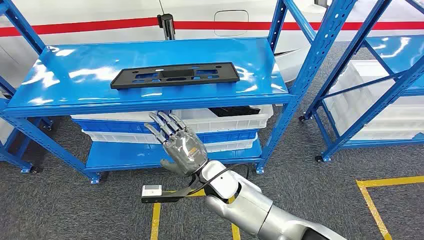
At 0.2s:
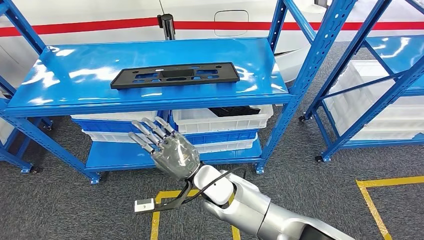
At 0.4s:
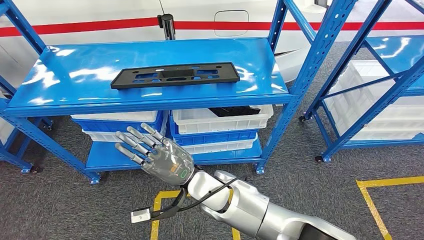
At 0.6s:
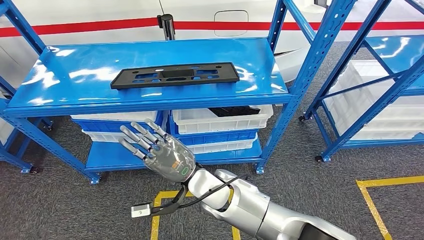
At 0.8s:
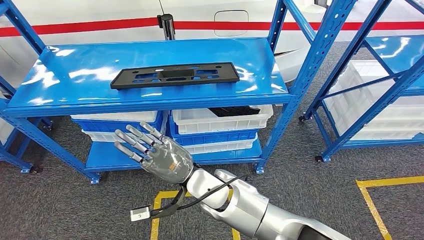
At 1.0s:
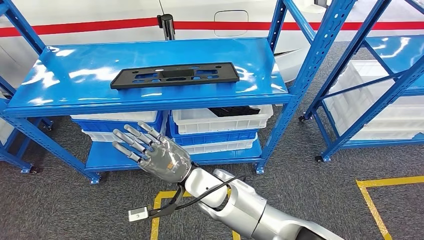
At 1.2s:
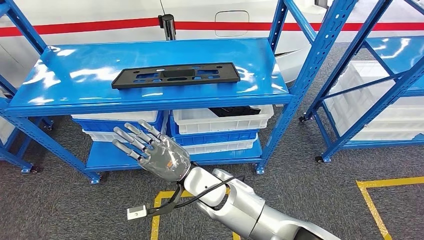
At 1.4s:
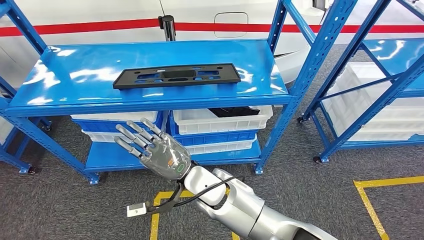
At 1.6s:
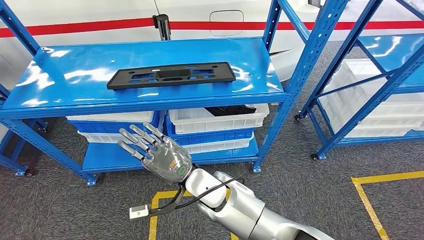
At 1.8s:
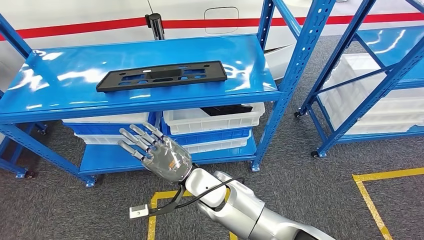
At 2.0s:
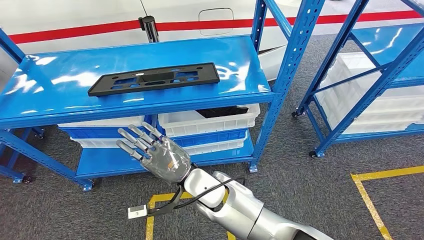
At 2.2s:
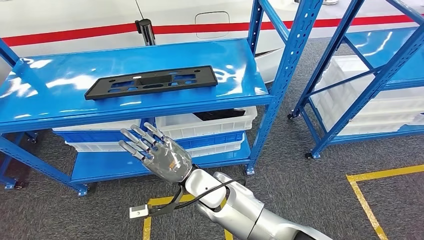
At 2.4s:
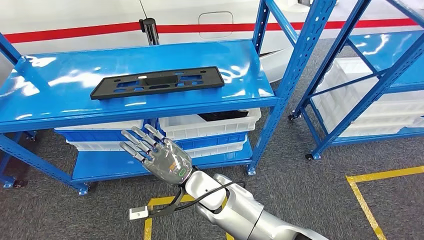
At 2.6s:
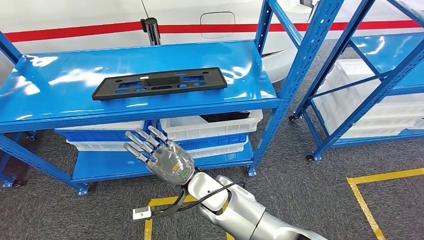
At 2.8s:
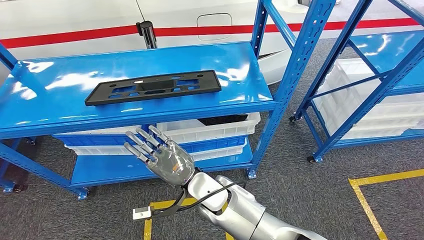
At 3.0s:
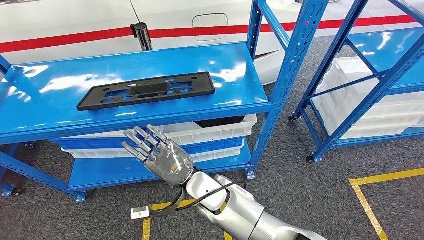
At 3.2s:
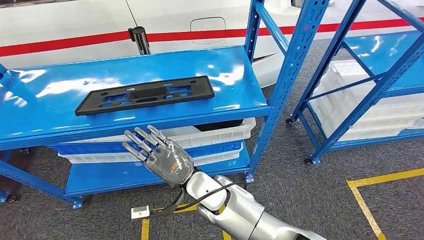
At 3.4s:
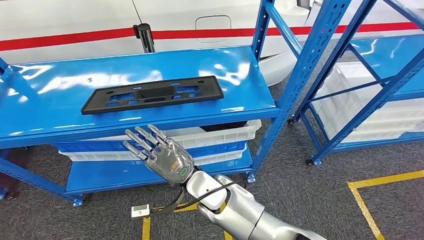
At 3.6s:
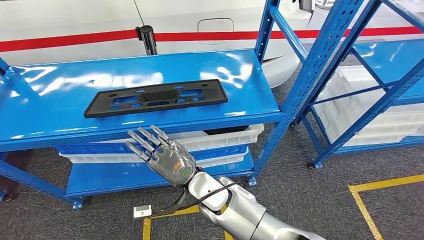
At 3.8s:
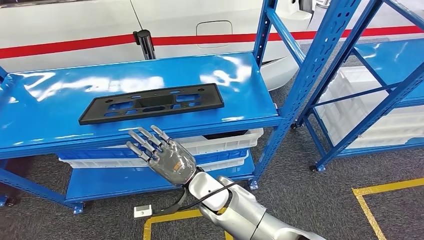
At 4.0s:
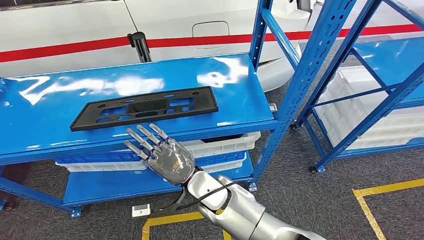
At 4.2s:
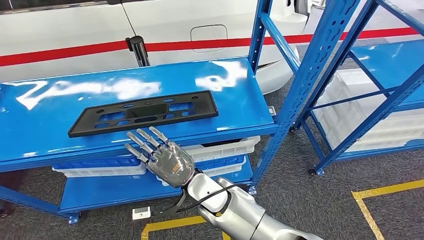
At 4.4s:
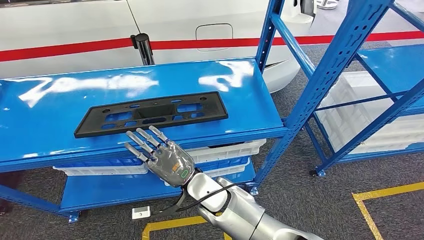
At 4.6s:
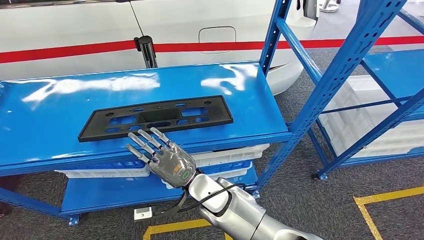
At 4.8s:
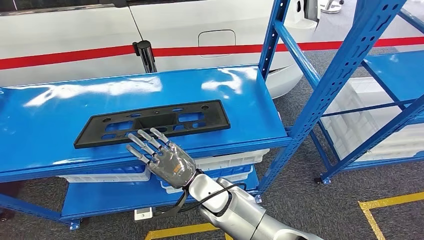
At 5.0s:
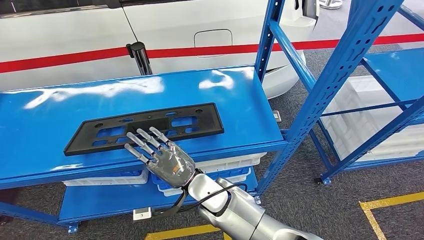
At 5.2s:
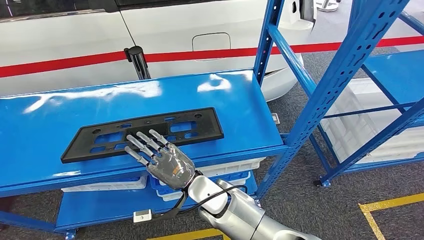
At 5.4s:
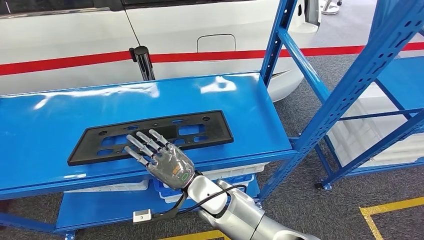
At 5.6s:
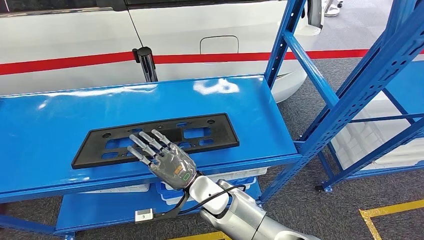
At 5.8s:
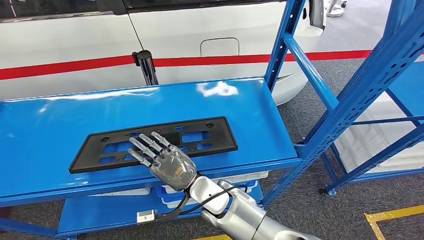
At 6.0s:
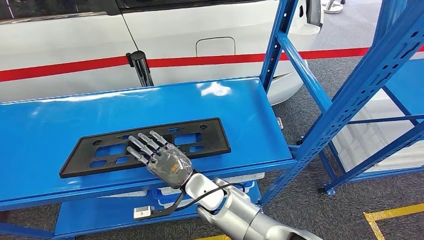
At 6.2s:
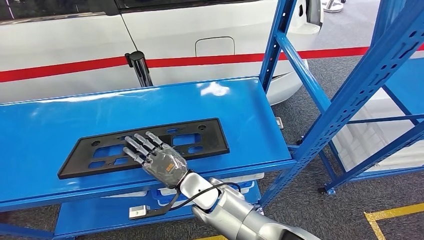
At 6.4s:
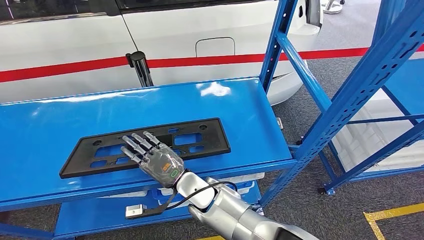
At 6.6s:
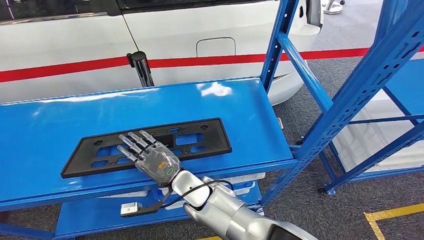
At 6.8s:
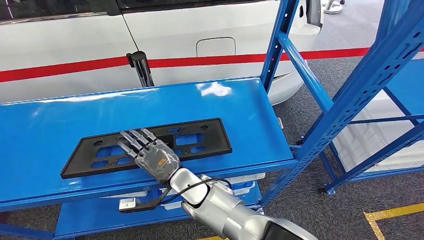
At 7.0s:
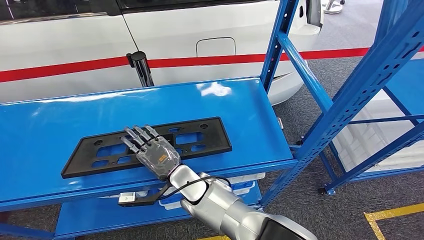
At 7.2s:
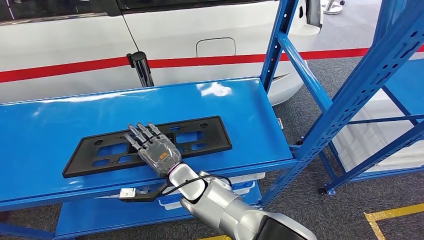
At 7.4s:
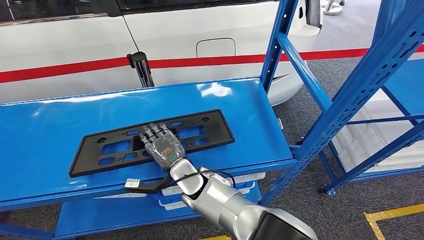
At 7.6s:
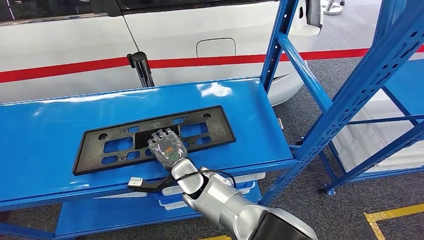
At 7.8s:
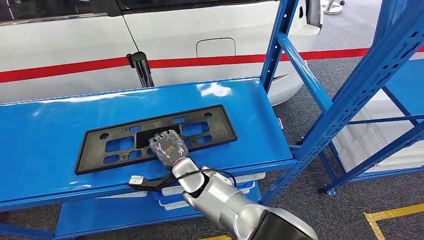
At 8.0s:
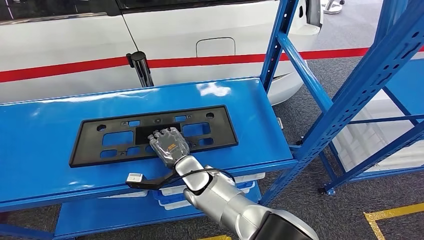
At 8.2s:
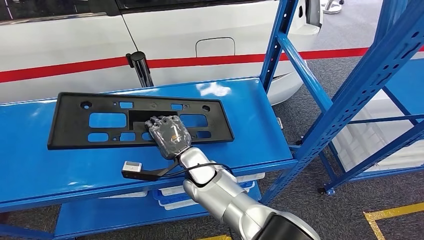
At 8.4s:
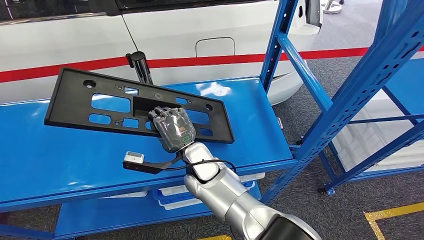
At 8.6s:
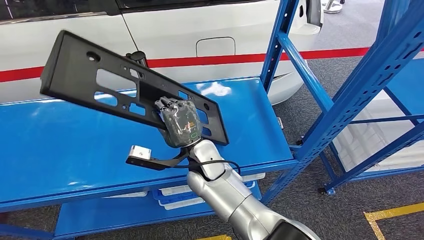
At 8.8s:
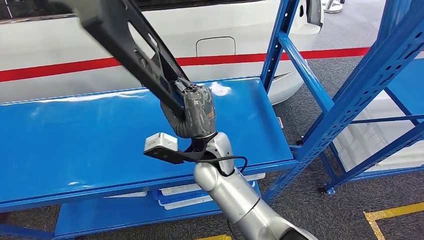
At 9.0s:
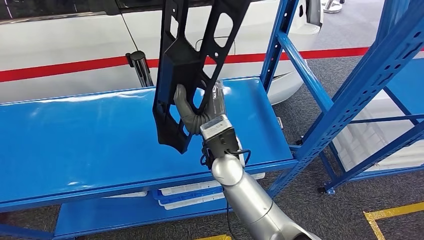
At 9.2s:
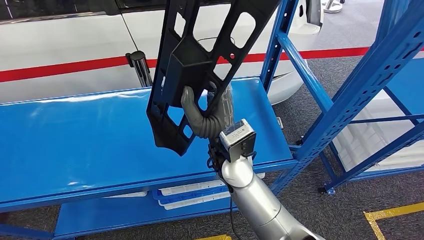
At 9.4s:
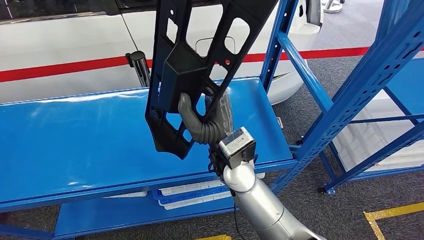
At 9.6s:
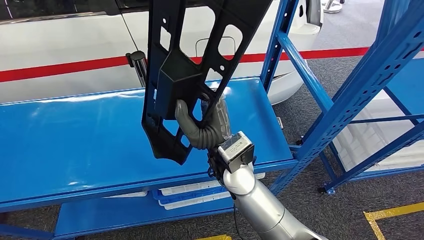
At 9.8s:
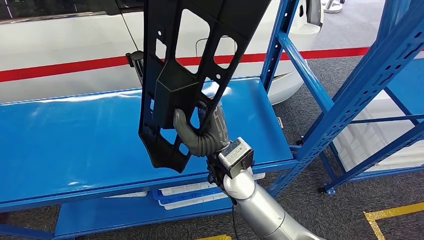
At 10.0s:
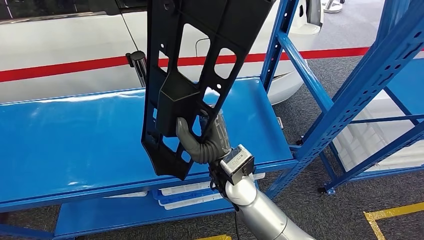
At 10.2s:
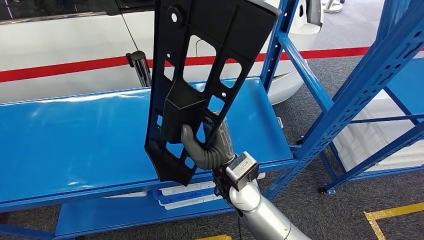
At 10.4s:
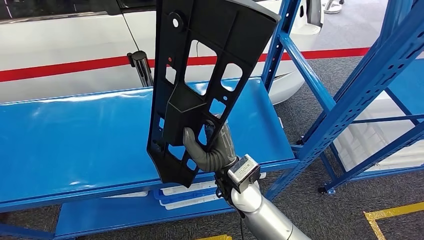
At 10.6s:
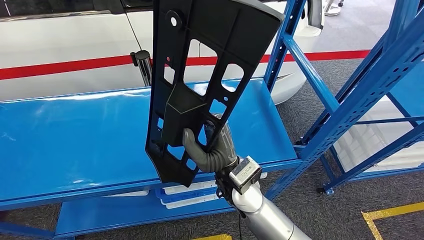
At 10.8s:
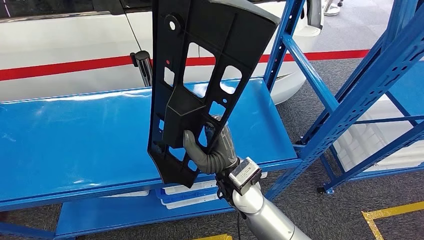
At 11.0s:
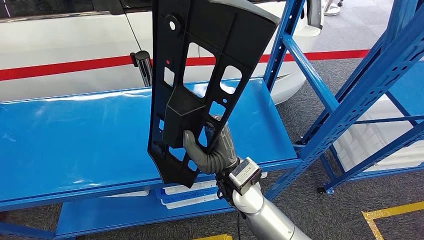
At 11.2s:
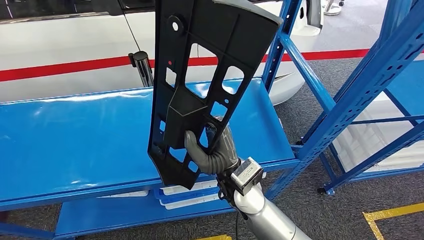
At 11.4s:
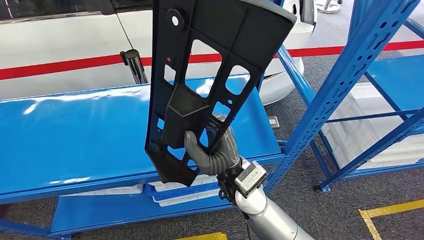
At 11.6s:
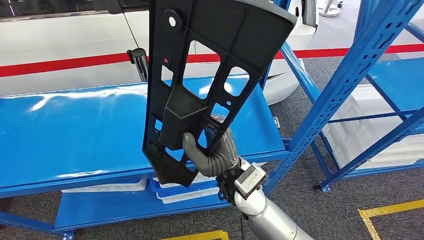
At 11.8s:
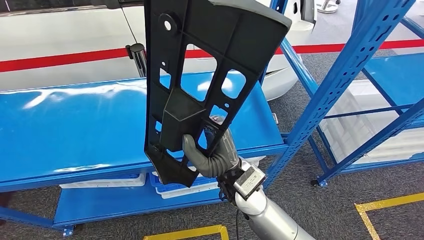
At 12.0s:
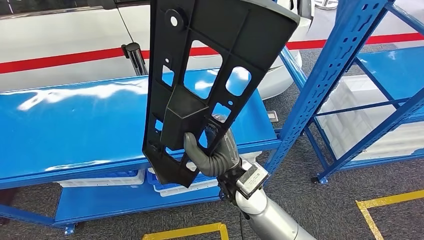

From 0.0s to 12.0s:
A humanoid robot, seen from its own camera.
Step, from 0.0s to 11.8s: Pick up the large material from the shelf.
From 9.0s to 10.4s: The right hand ends up some 5 cm from where it was.

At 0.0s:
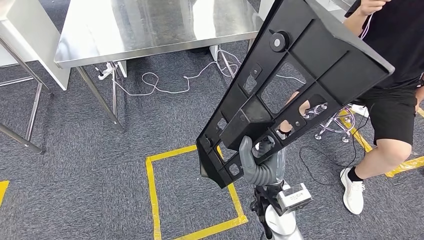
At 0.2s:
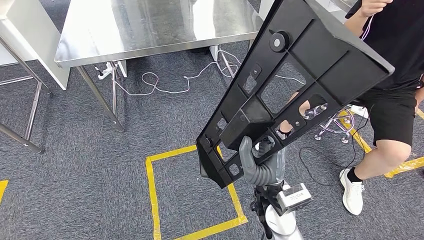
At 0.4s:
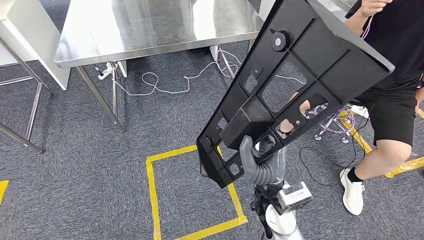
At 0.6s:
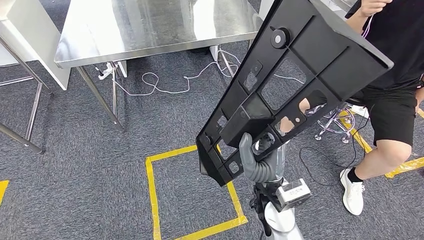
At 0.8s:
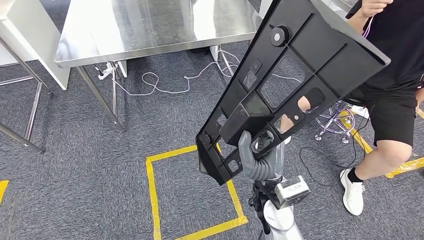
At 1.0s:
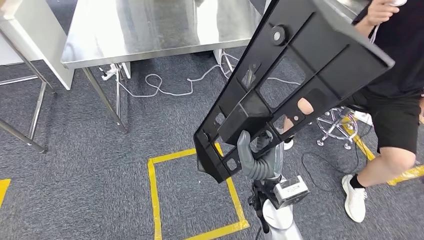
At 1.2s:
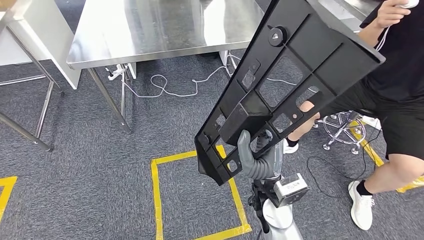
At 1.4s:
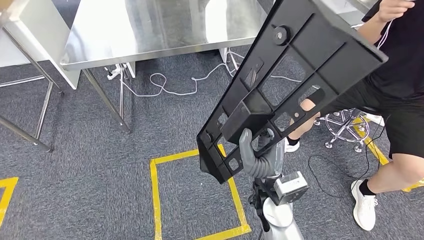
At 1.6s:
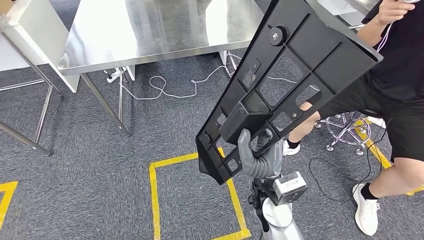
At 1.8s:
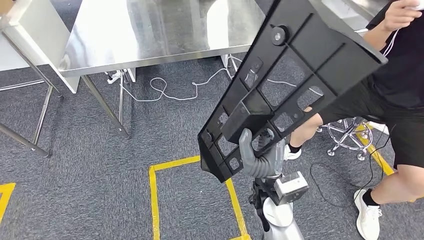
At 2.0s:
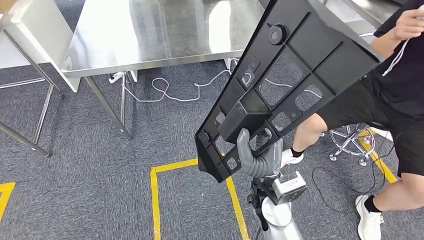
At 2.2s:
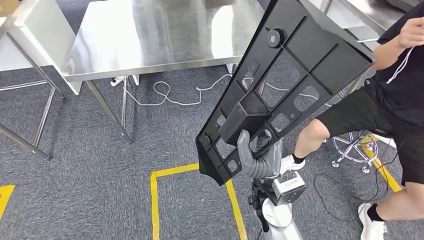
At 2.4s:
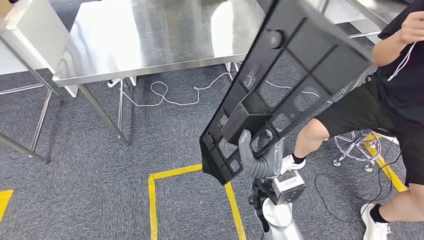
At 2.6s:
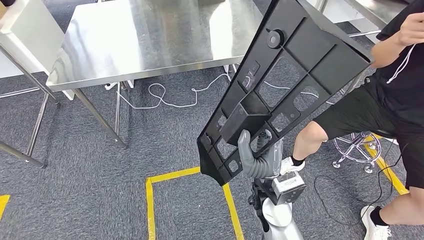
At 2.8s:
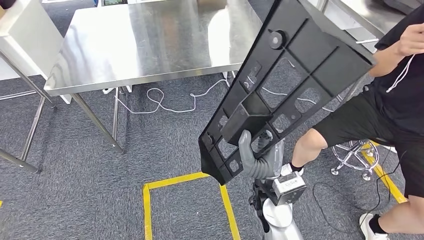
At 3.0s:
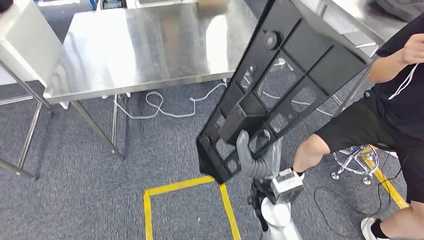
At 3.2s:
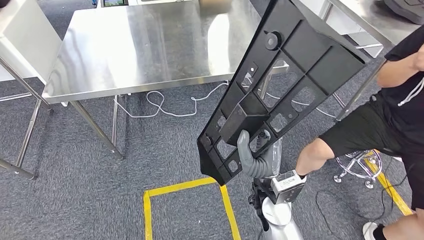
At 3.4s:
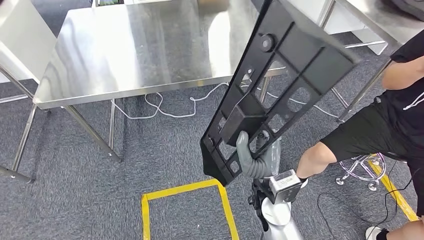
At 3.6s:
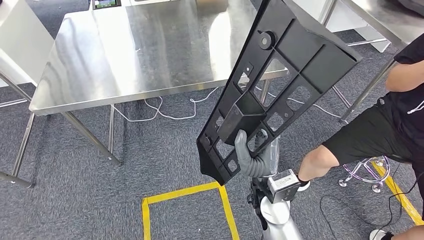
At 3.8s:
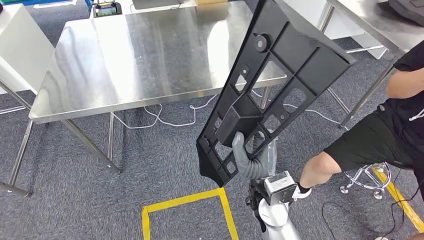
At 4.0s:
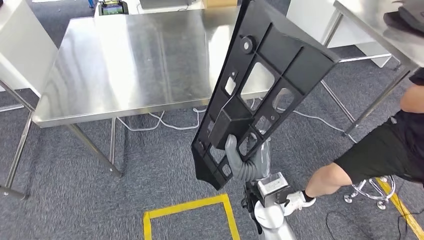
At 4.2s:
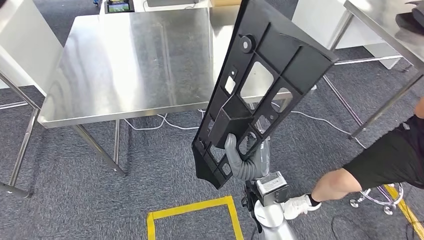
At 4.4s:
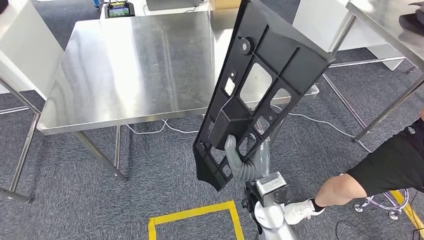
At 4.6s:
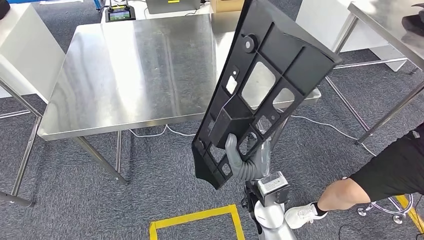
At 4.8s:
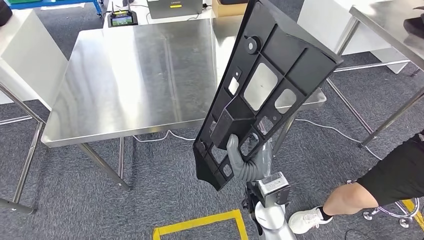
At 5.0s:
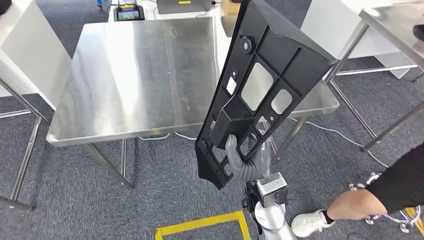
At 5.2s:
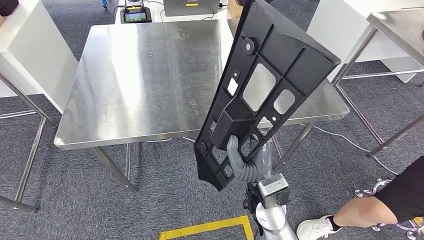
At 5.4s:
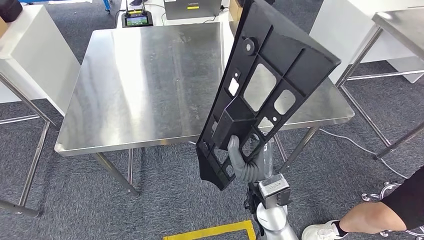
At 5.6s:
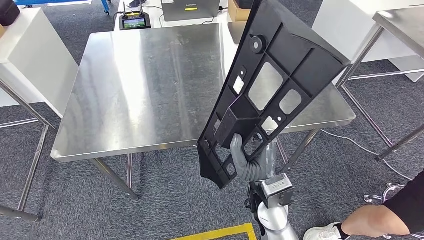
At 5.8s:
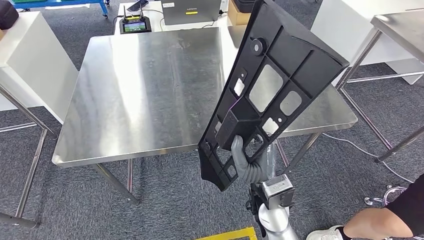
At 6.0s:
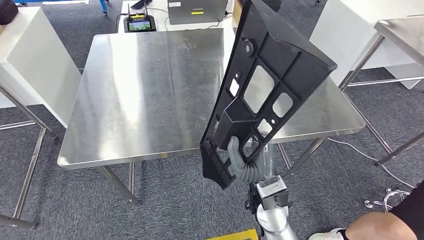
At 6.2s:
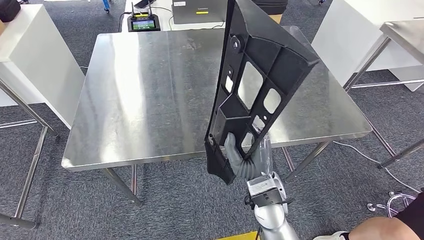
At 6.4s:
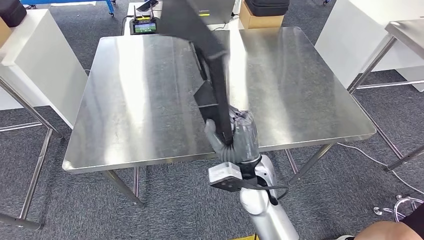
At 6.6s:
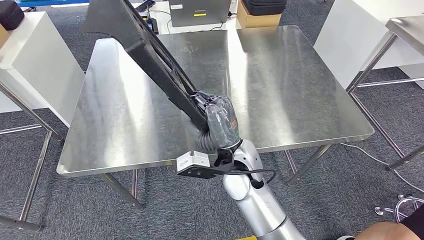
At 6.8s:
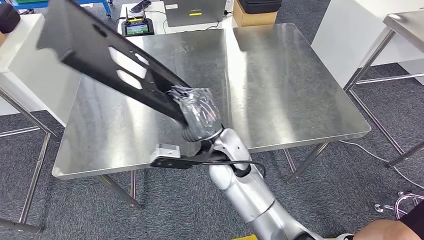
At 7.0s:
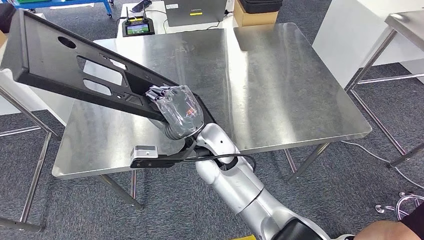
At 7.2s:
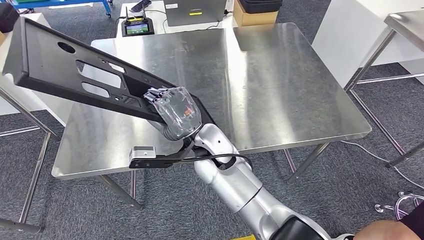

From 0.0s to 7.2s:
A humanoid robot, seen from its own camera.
Step, from 0.0s to 4.6s: Move the large material to the workbench.
